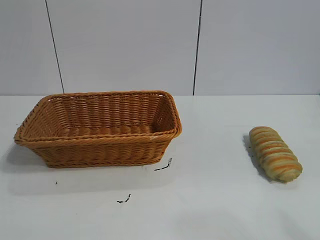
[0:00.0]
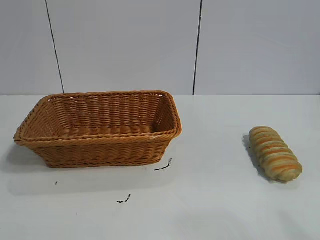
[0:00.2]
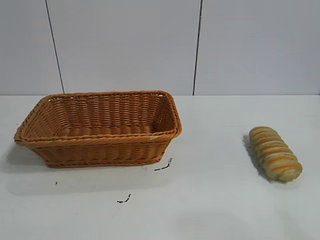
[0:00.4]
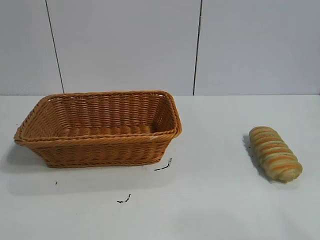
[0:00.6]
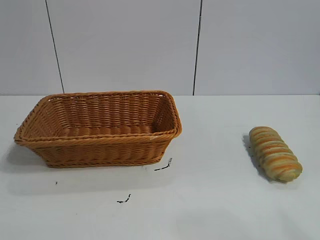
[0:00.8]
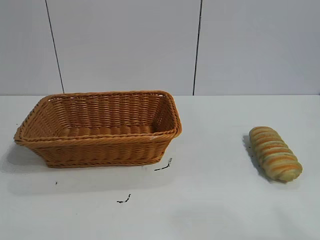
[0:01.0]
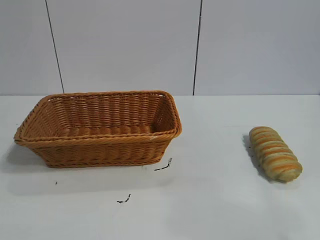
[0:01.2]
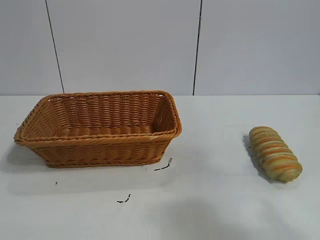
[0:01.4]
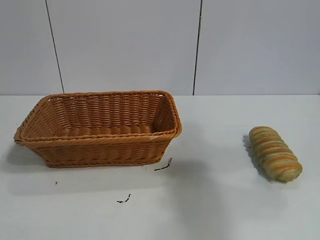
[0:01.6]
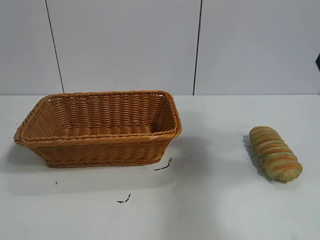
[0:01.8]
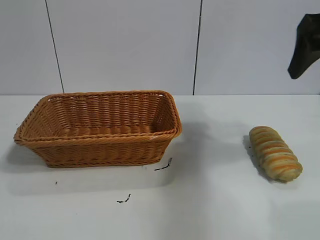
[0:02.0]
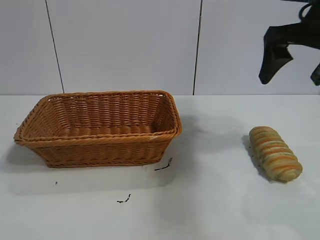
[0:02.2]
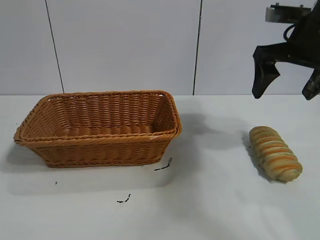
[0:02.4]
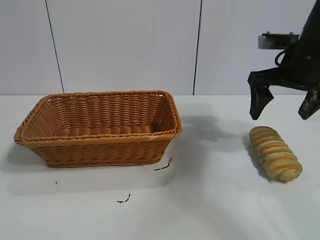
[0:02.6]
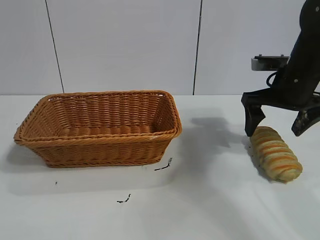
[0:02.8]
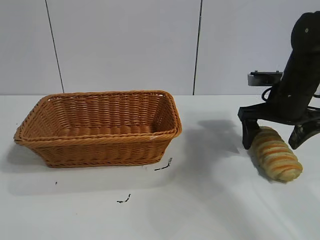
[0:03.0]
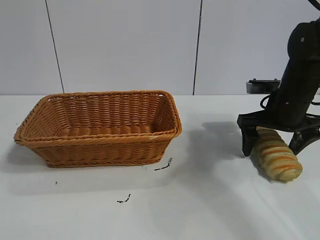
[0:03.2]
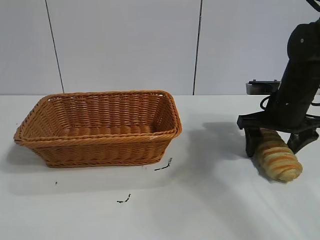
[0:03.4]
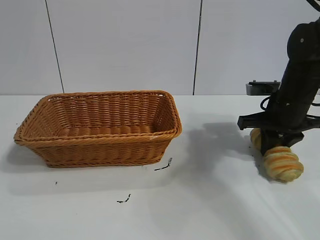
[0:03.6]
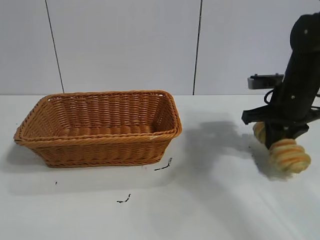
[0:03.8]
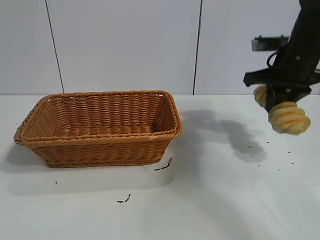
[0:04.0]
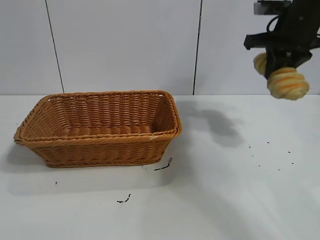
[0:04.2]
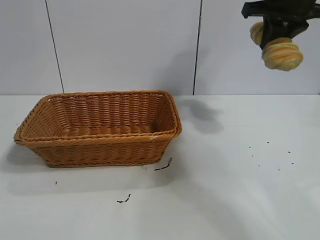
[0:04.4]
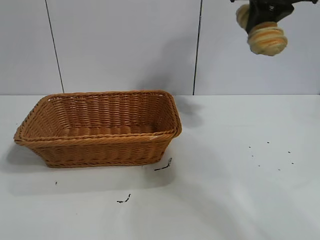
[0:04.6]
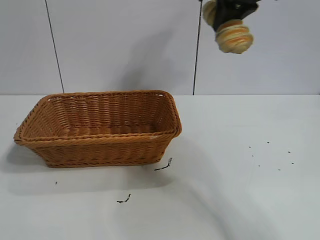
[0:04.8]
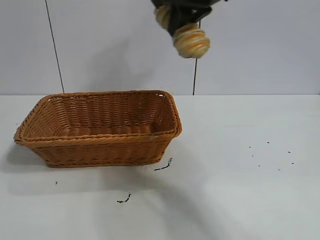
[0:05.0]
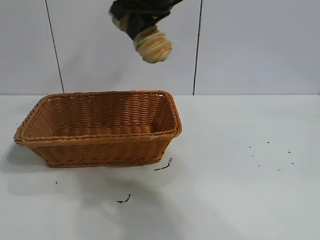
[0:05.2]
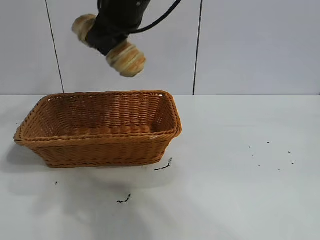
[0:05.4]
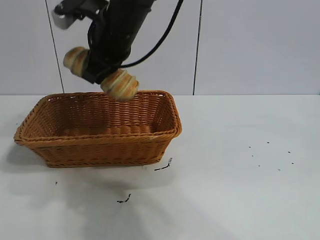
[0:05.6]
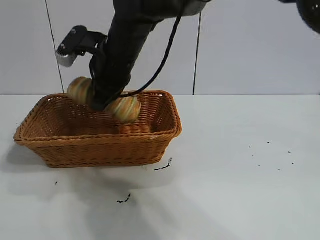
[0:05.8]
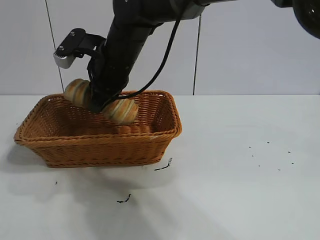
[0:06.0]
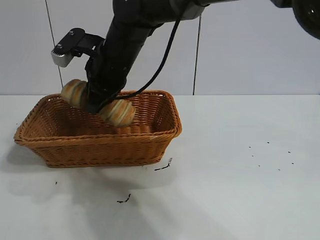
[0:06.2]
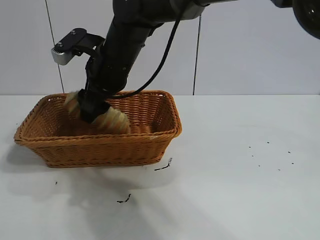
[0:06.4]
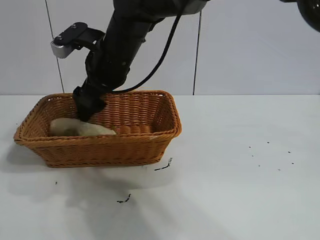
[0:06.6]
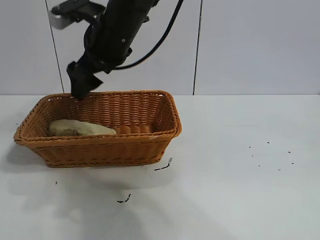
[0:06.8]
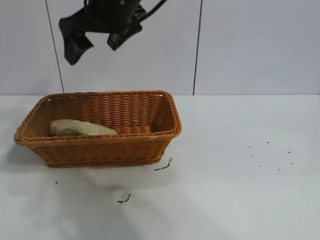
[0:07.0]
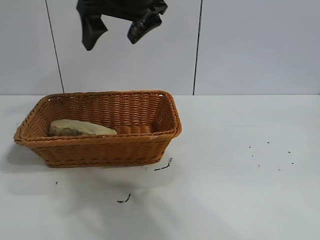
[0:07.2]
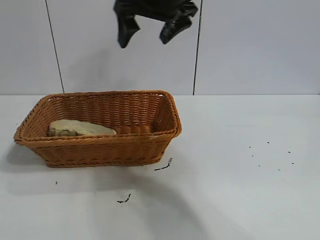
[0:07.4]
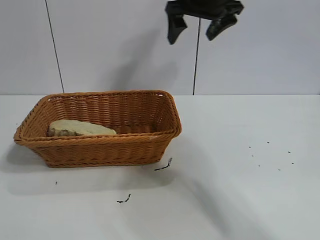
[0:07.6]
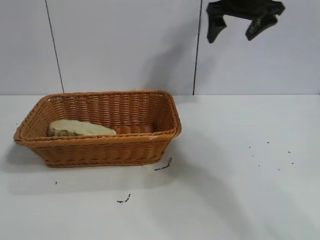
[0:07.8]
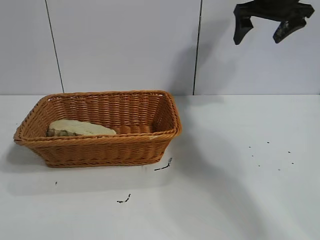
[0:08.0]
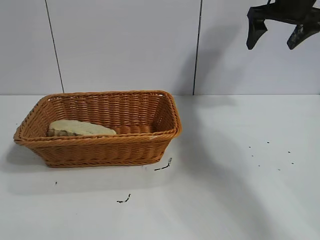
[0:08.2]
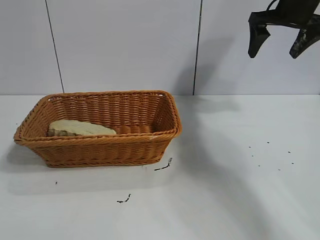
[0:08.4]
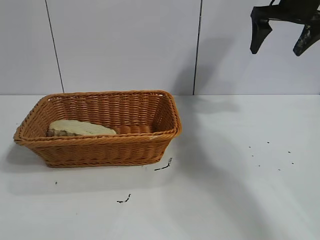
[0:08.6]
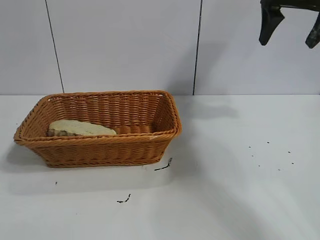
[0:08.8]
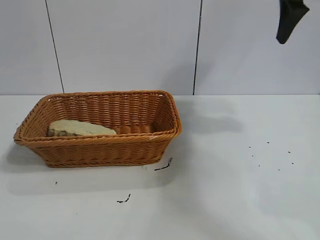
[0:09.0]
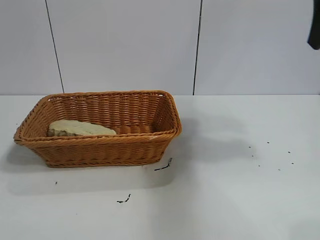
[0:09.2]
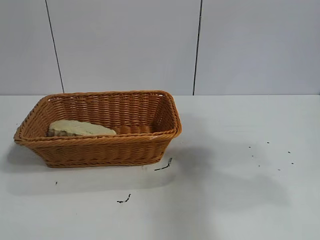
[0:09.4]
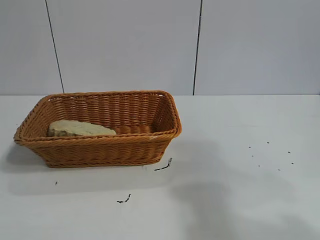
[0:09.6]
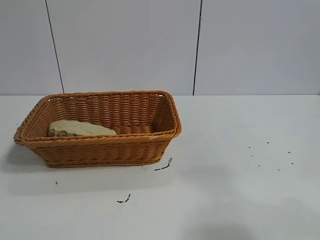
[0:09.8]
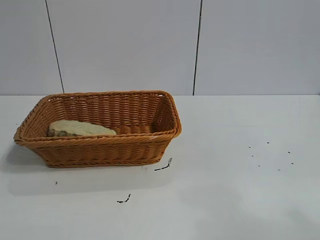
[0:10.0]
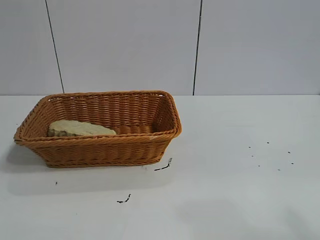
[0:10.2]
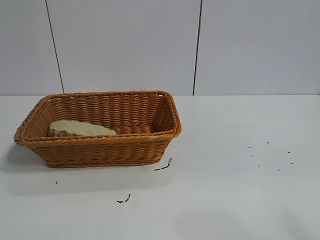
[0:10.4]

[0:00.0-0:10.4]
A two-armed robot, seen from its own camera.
Task of the whole recording: pick up the long bread and put it into the basket.
Step, 0:01.8 to 0:03.6: Grasp the long bread with right gripper.
Step, 0:04.0 to 0:07.2: Place the long bread in the basket with right gripper.

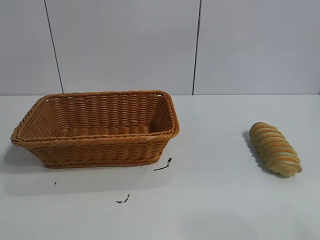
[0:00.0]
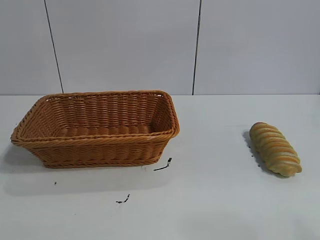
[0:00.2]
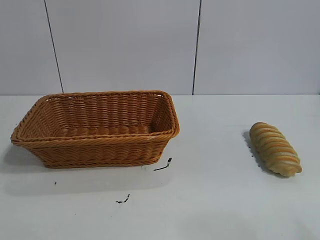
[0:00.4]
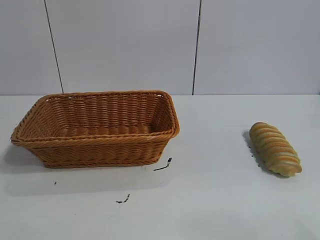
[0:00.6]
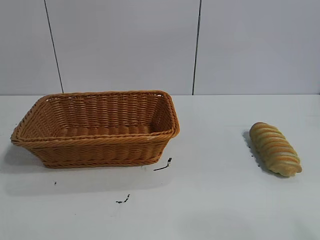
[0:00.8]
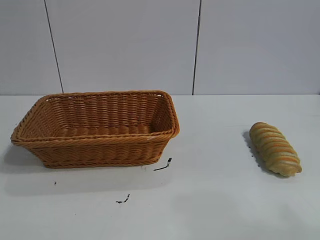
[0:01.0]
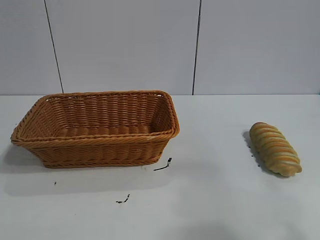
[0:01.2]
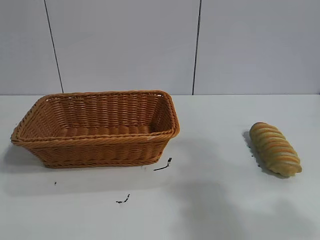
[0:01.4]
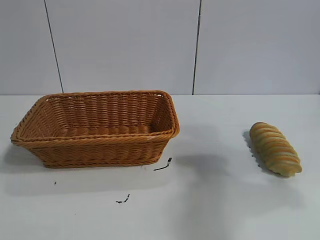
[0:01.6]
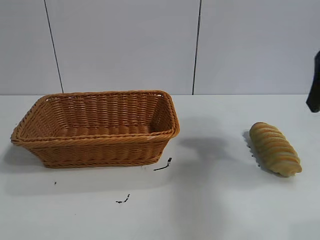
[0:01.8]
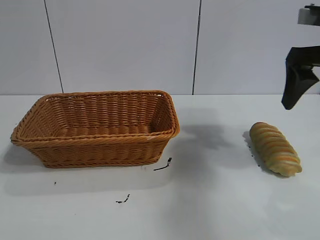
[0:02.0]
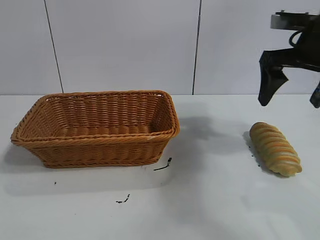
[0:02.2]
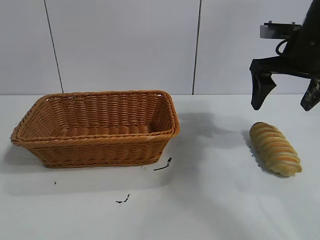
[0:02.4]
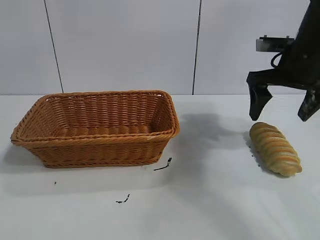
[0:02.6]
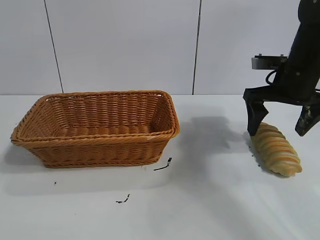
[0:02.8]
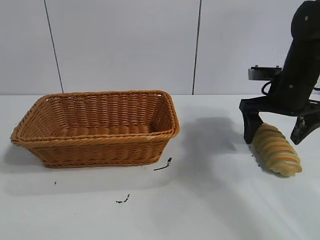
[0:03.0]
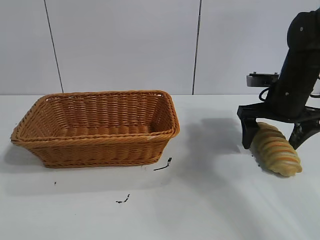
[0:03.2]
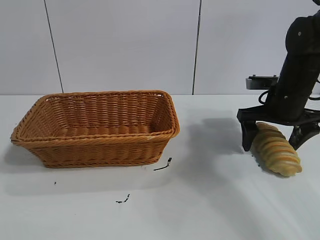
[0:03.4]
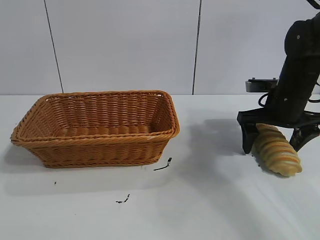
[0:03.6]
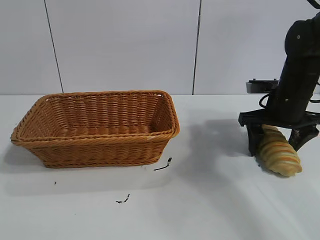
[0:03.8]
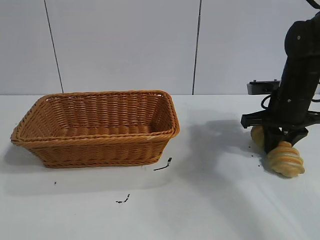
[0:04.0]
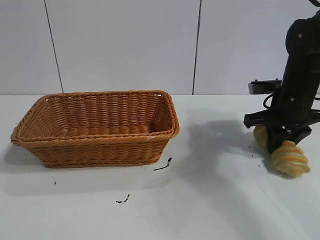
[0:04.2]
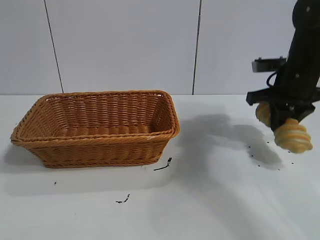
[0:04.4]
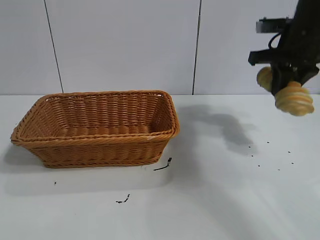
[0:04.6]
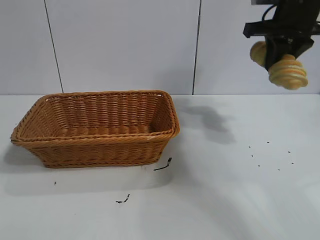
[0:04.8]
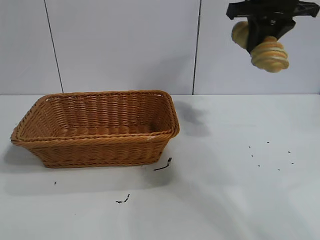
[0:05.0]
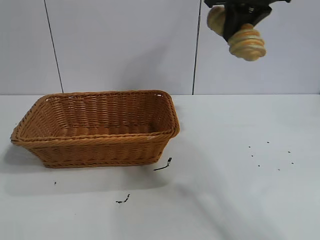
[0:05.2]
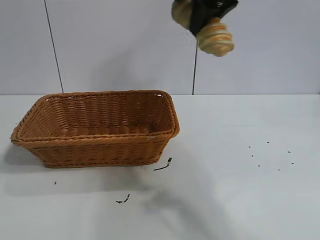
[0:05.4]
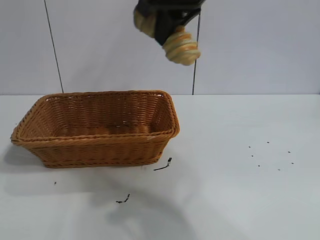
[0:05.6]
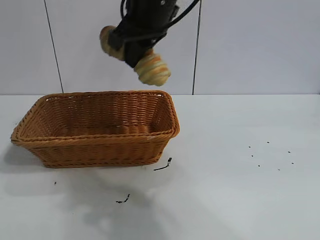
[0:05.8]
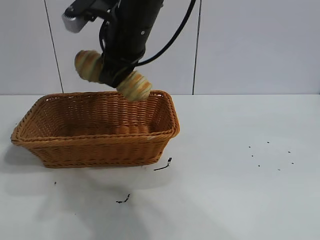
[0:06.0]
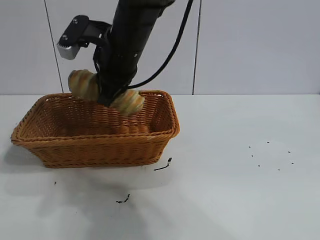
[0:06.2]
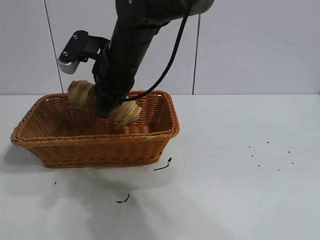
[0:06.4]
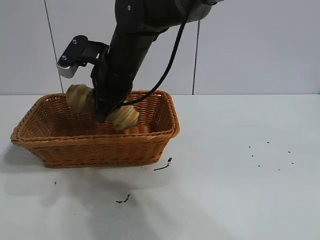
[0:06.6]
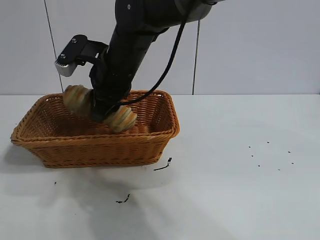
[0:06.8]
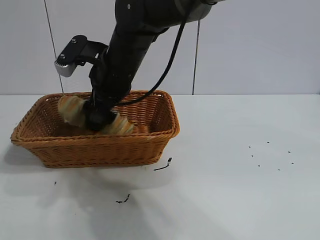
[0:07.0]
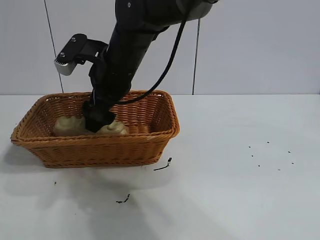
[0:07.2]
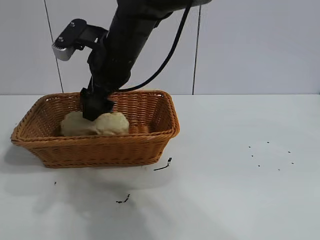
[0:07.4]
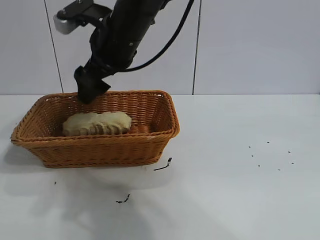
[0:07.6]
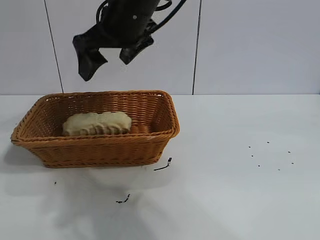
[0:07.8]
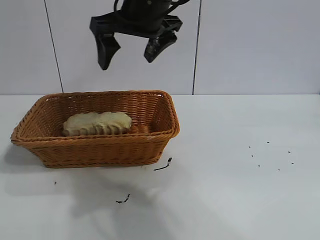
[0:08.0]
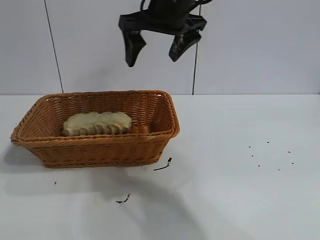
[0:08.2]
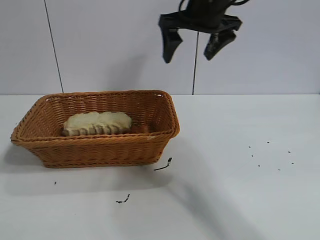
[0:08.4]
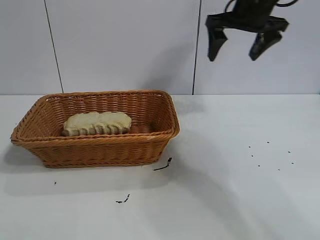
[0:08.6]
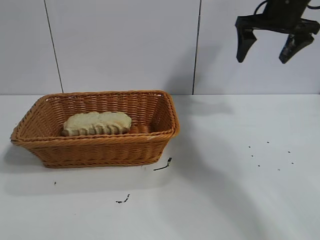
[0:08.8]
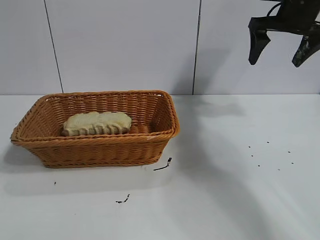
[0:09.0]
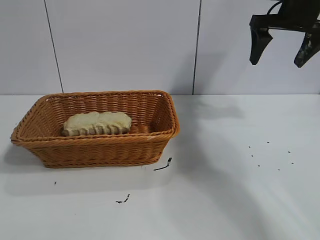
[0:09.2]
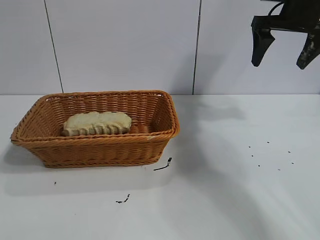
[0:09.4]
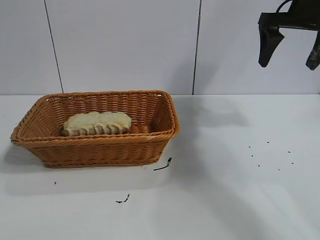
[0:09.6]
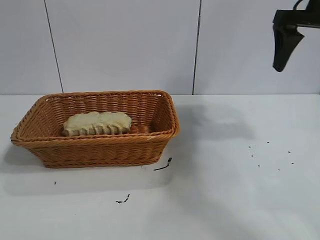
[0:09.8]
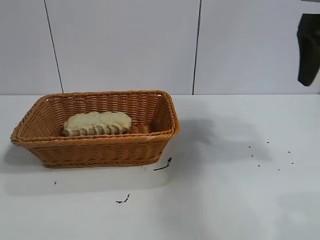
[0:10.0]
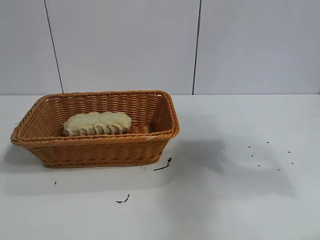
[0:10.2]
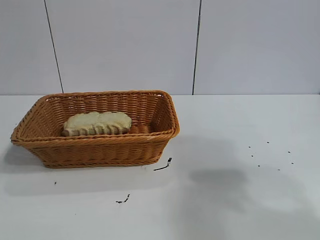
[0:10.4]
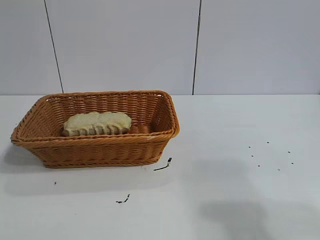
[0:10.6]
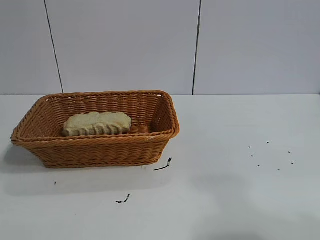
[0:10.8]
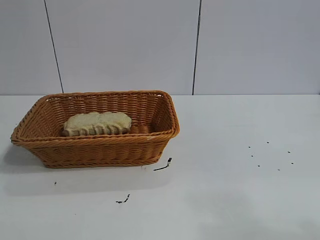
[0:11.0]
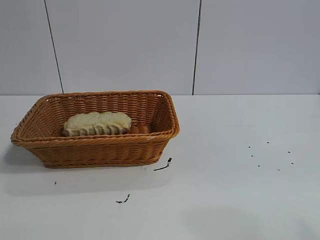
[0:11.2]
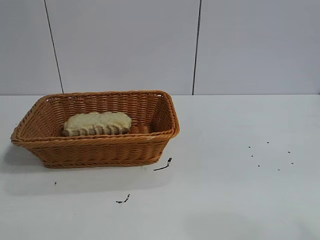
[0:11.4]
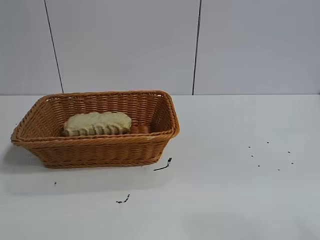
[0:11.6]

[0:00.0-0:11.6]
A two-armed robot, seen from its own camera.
Task of the whole recording: pick up the long bread and put it into the basket.
Step, 0:01.8 to 0:04.2: Grasp the long bread with right gripper.
Step, 0:04.4 to 0:07.4: Place the long bread in the basket with right gripper.
